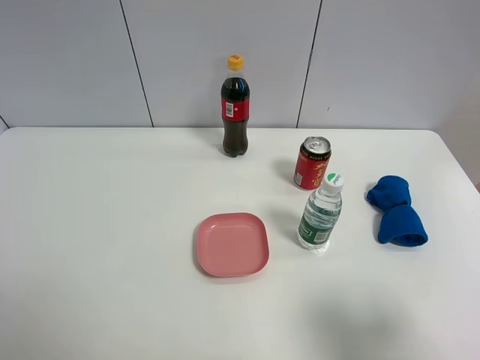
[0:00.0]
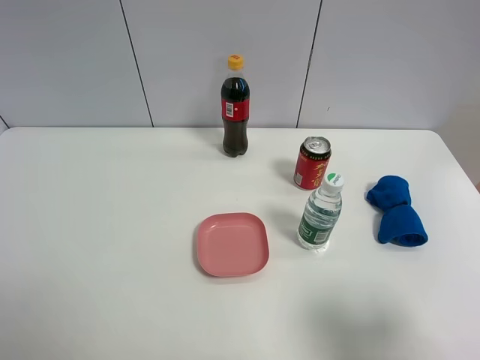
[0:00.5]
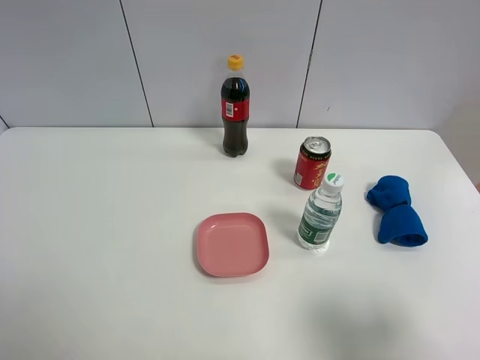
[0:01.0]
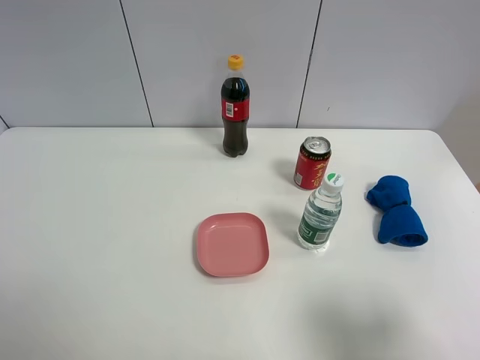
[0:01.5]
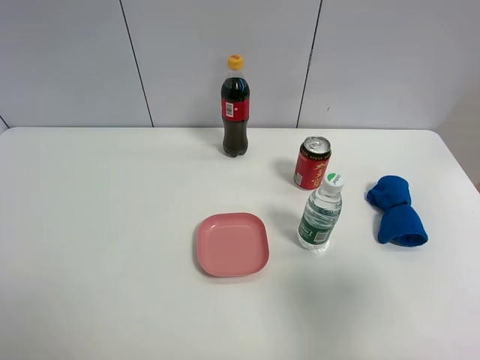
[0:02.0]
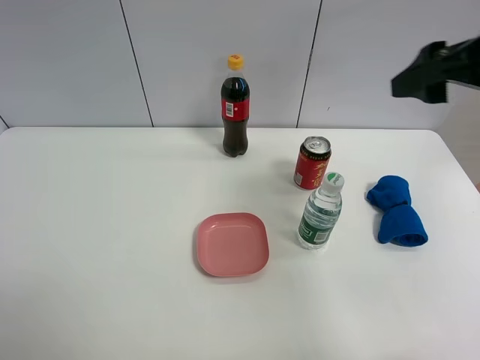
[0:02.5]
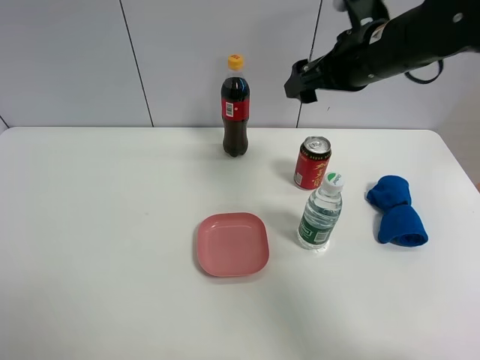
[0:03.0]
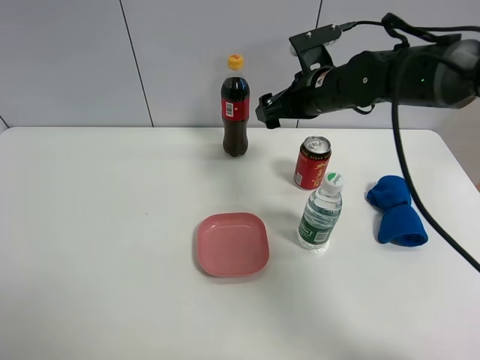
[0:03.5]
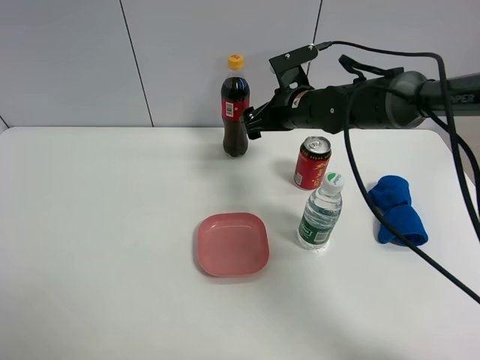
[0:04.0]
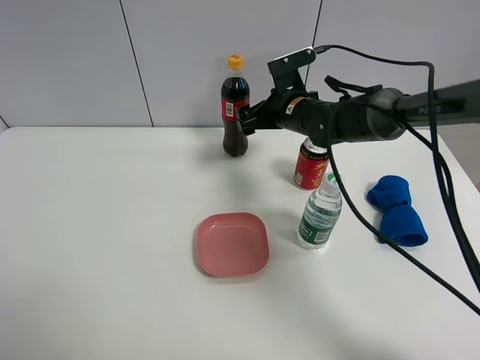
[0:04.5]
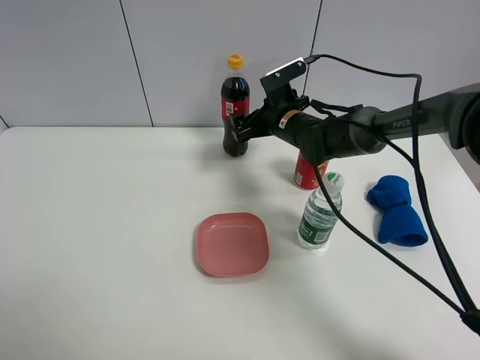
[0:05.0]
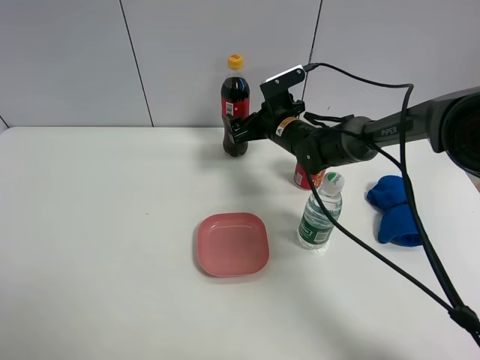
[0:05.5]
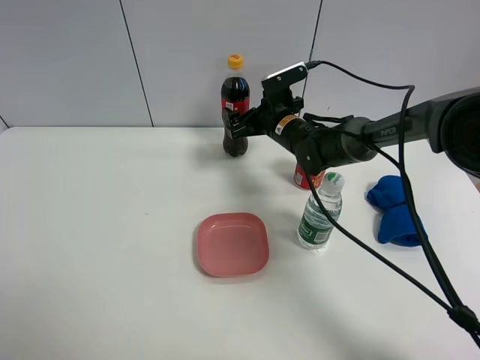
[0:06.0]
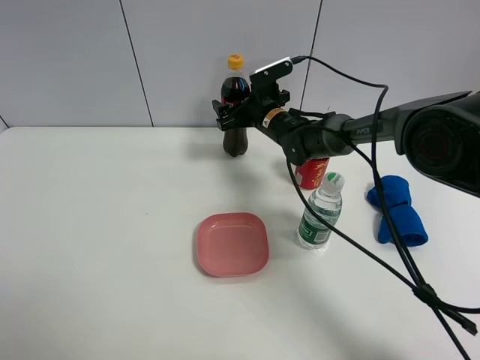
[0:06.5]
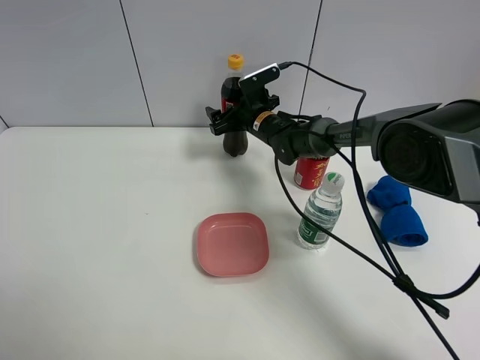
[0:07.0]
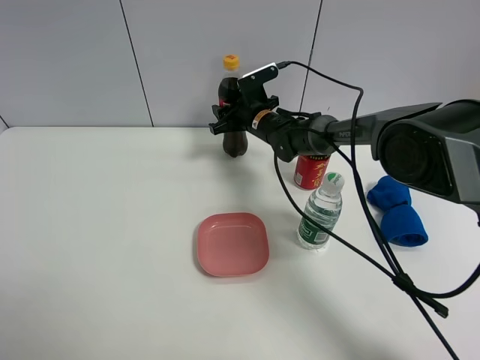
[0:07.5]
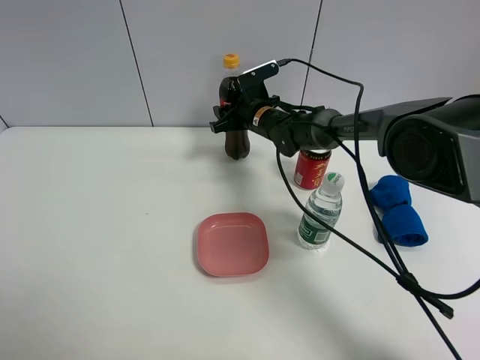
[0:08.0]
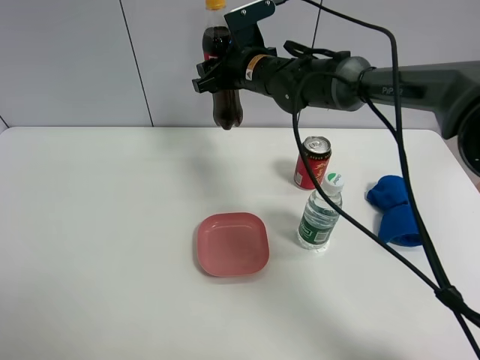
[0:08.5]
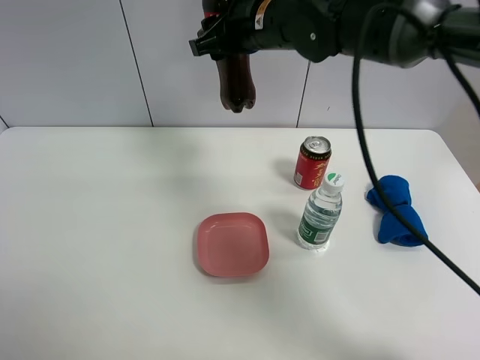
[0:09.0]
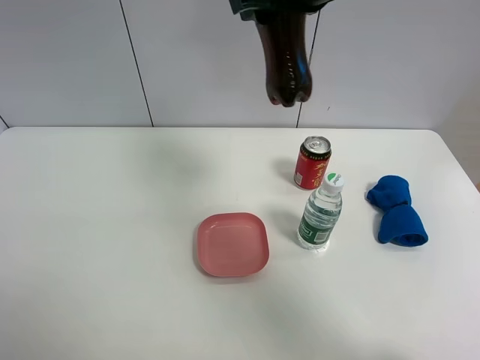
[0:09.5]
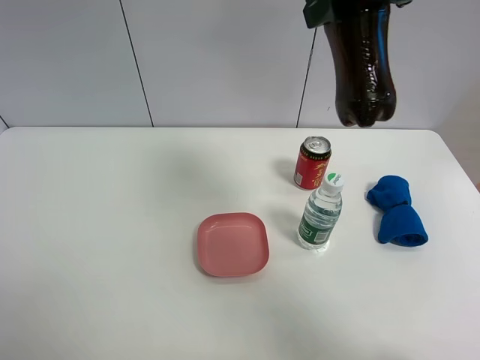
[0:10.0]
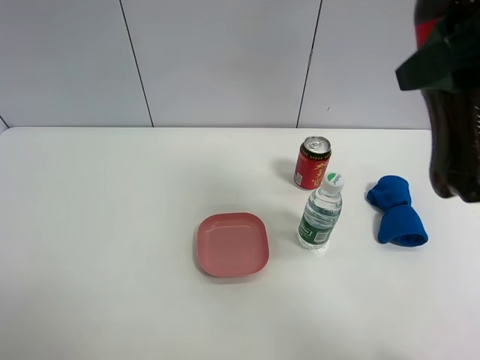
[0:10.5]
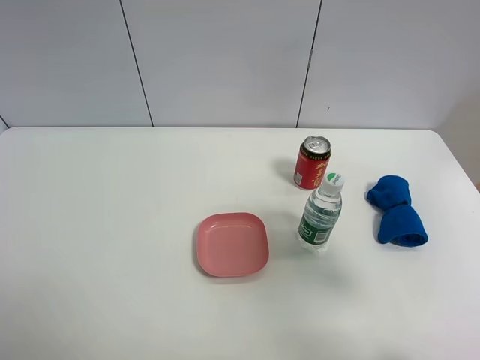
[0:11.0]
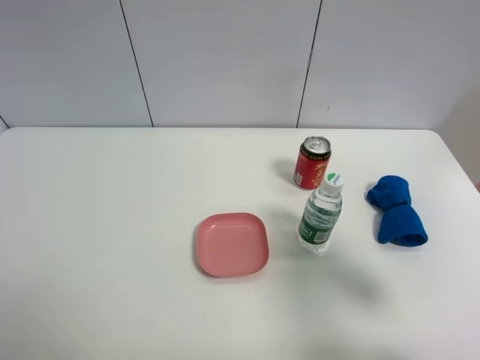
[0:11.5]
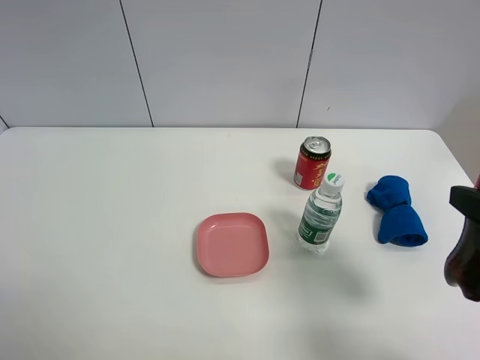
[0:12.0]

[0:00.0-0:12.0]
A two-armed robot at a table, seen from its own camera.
Task of the whole recording: the gripper move the object.
Step, 0:00.0 to 0:07.5: Grasp the coke with the right gripper.
0:00.0 to 0:02.0: The right gripper is displaced upward and forward by roughly 10 cm.
0:02.0 to 0:04.0: The right gripper travels forward and to the left by approximately 40 cm.
0:04.0 to 0:06.0: The right gripper shifts roughly 5 cm downward.
0:06.0 to 0:08.0: The right gripper shifts by approximately 5 cm, and closes.
0:08.0 to 0:10.0: The right gripper shifts roughly 40 cm upward and backward.
0:10.0 to 0:12.0: The right gripper goes some 25 cm backward, downward and to the right.

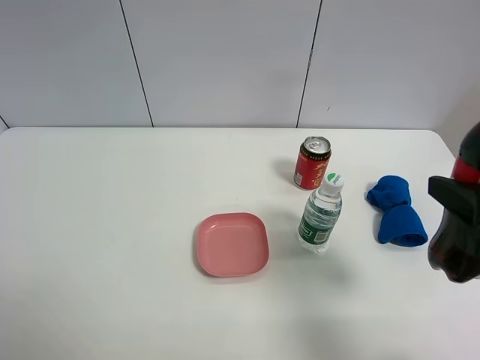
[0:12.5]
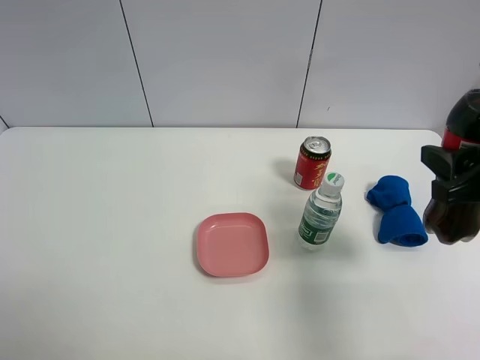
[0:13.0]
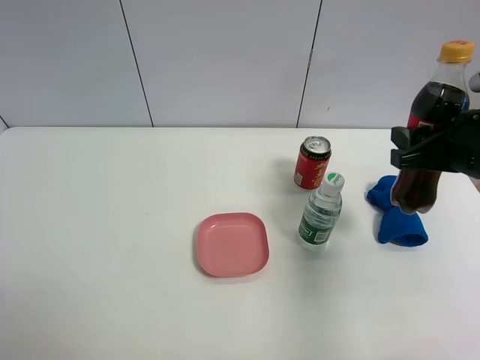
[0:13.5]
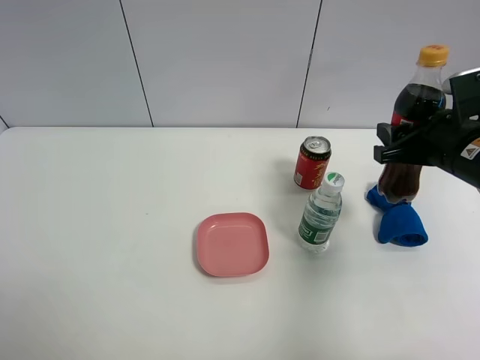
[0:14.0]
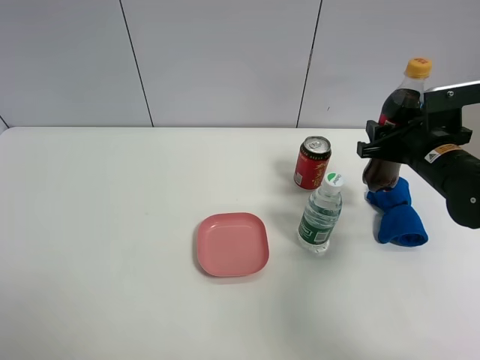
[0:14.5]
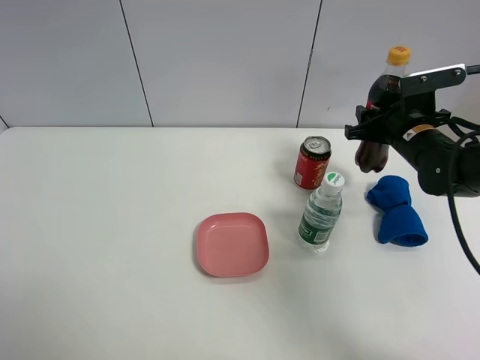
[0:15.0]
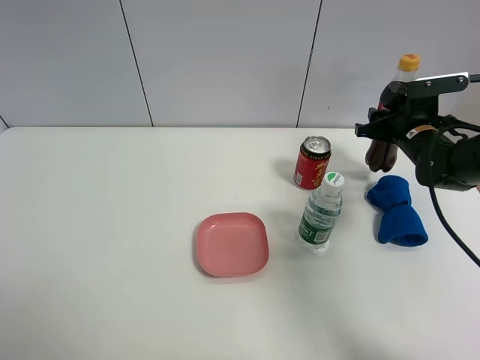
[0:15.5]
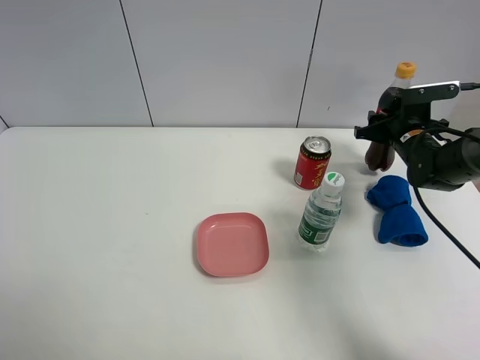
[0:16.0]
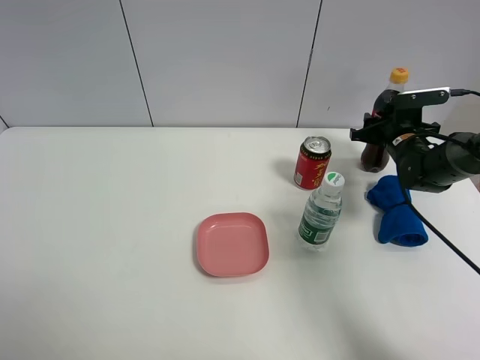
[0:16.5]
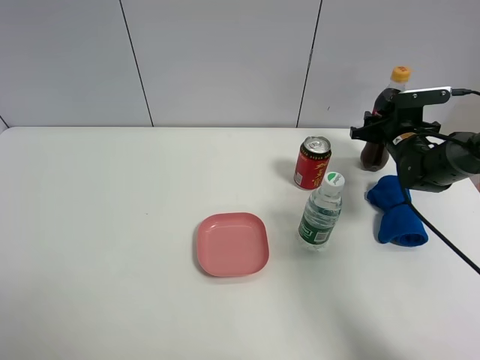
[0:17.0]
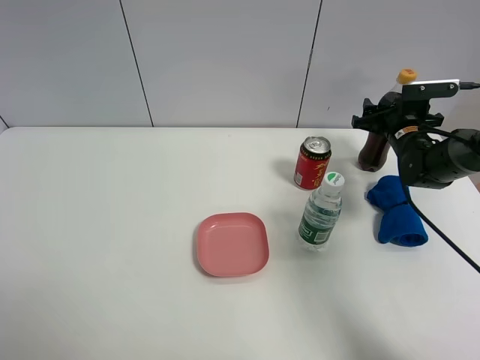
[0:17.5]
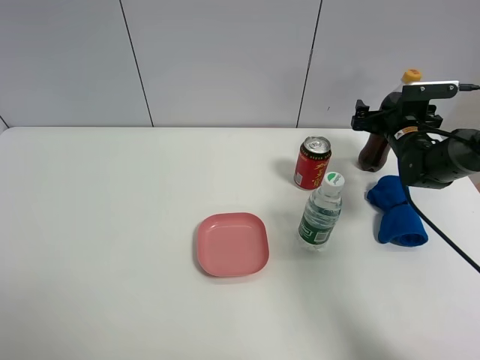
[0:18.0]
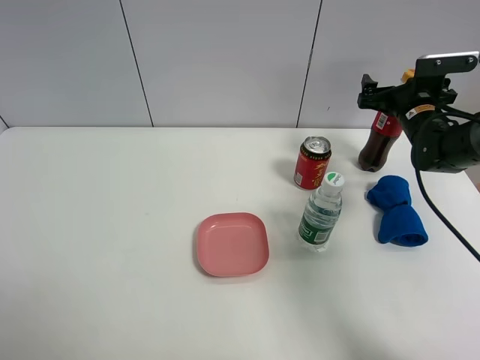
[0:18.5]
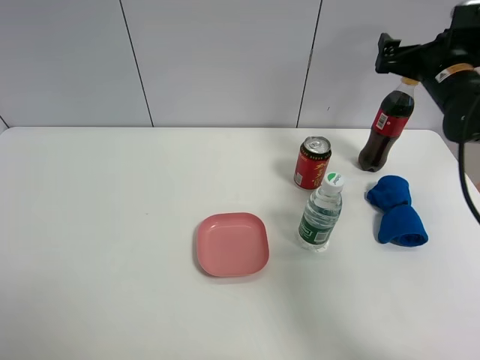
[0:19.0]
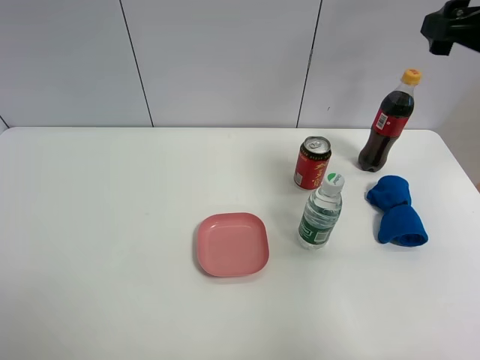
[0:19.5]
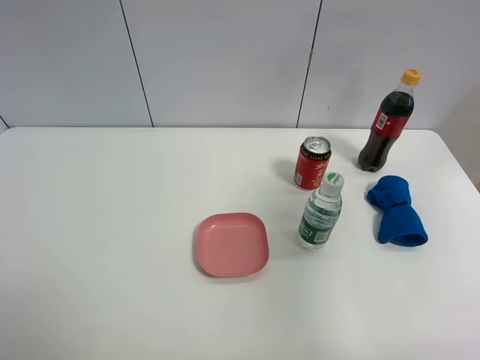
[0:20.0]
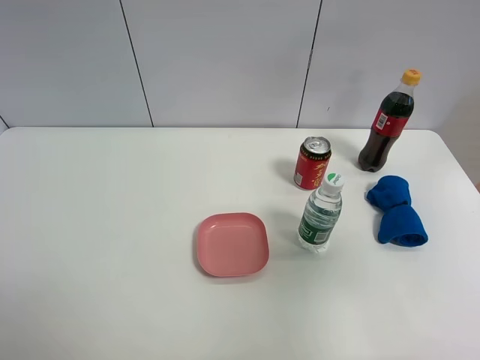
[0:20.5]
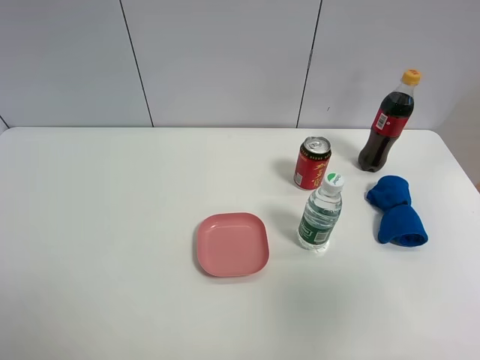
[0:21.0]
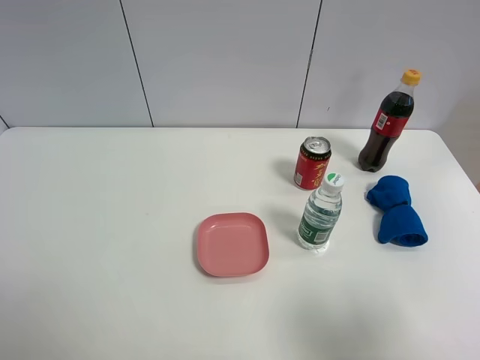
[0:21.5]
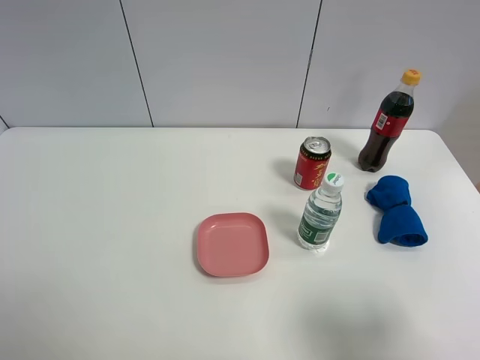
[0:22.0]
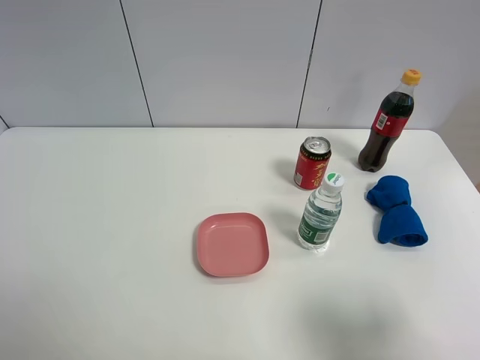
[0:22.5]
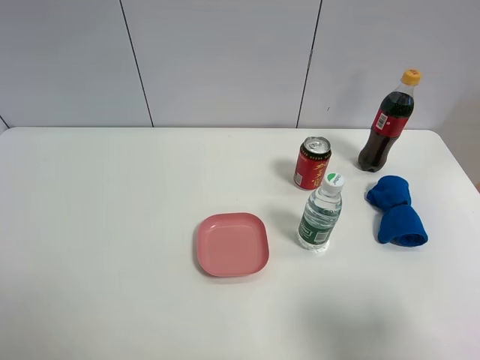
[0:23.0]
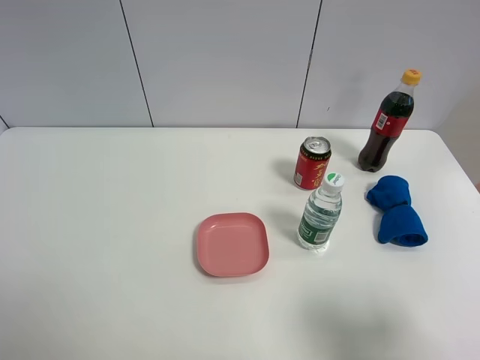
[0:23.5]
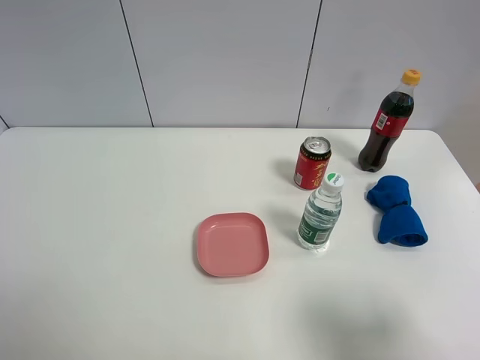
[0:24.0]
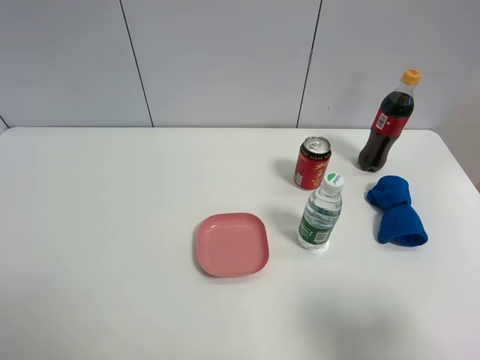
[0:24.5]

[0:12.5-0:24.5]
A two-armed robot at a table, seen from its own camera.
Task of the whole recording: the gripper move the object.
Step, 0:12.5 to 0:17.5: Place the coke on the table with the right gripper.
0:12.5 to 0:14.5: The right gripper is displaced forward and downward by approximately 20 cm.
0:14.5 to 0:16.5: The right gripper moves forward and downward, some 15 cm.
0:16.5 to 0:18.5: The right gripper travels upward by approximately 5 cm, and opens.
0:18.5 to 0:20.5: The right gripper is displaced backward and upward by some 40 cm.
0:20.5 to 0:22.5: The right gripper heads downward and backward, covering some 15 cm.
0:22.5 to 0:24.5: Neither gripper changes place.

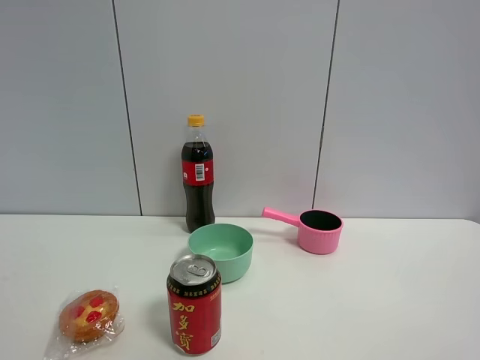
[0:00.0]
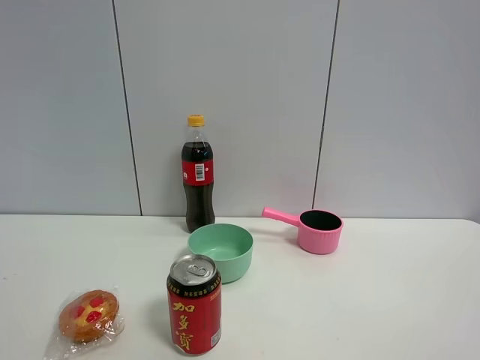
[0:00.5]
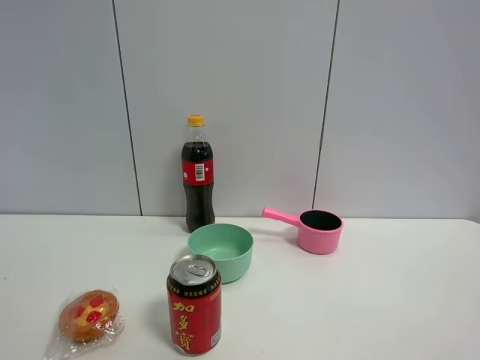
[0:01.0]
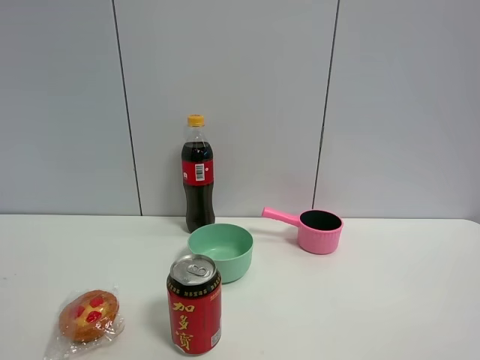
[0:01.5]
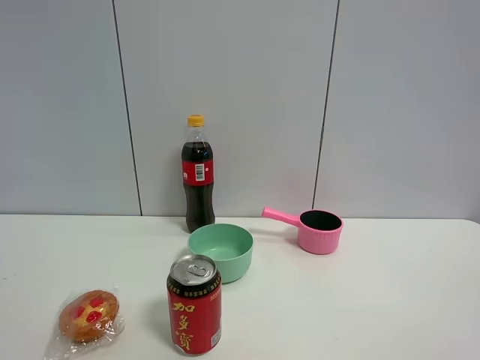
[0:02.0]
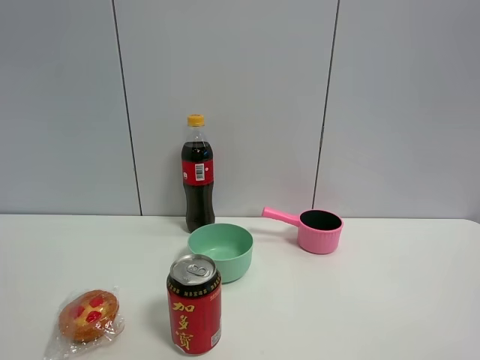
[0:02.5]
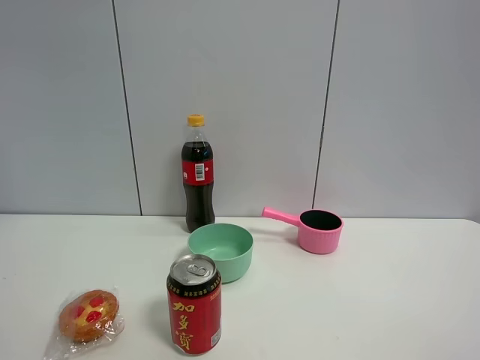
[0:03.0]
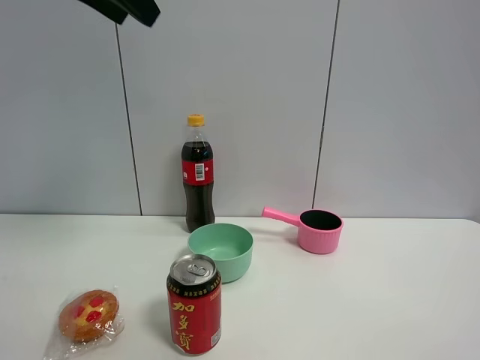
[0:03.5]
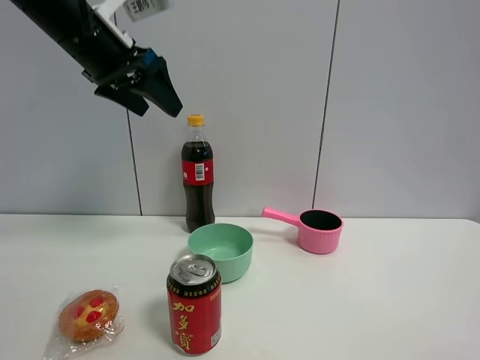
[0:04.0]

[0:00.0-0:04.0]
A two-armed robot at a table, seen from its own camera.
Task of the whole recording: the gripper move the object.
0:02.0 to 0:04.0: The left gripper travels forward by about 40 cm.
